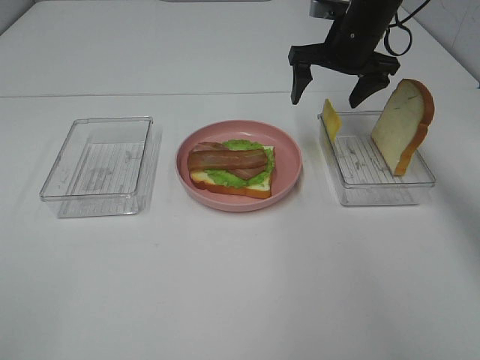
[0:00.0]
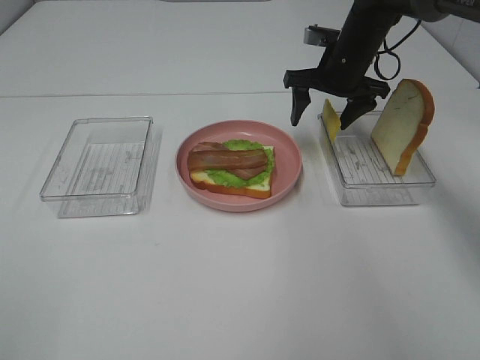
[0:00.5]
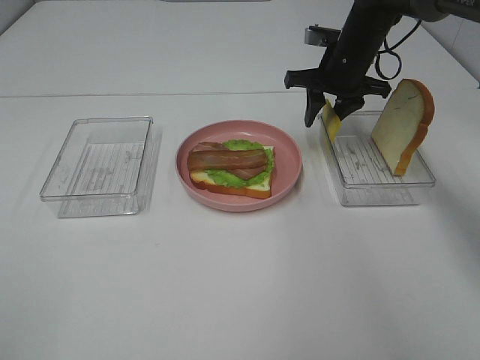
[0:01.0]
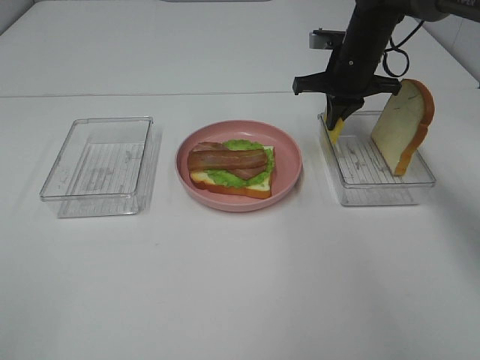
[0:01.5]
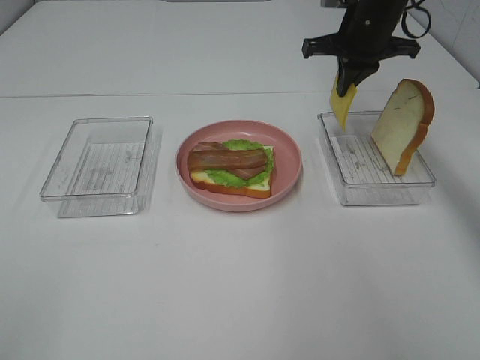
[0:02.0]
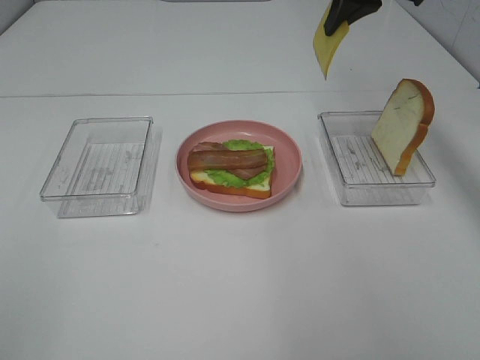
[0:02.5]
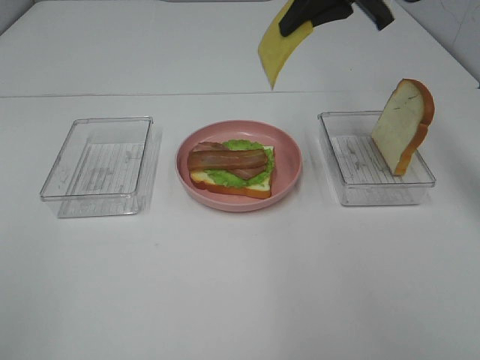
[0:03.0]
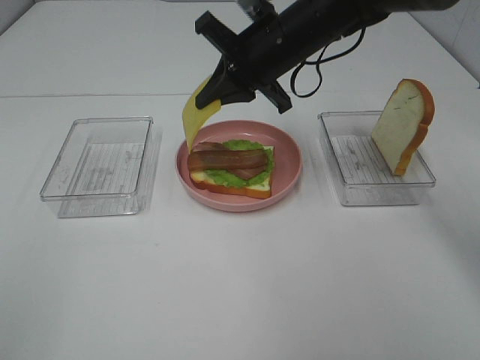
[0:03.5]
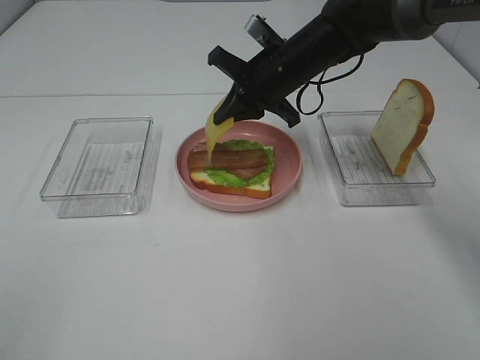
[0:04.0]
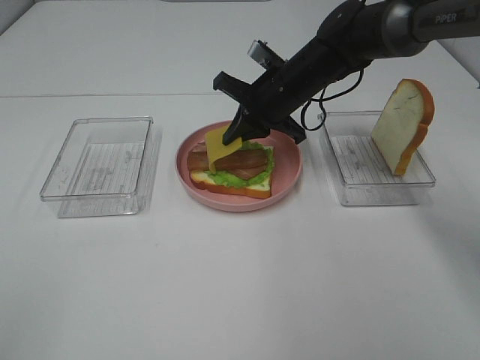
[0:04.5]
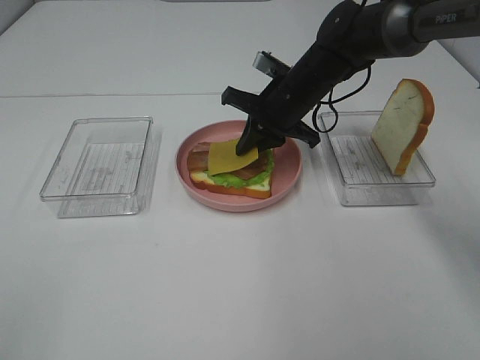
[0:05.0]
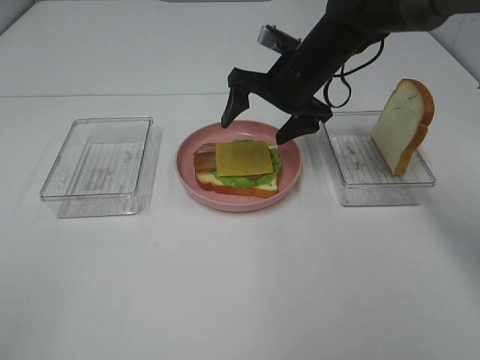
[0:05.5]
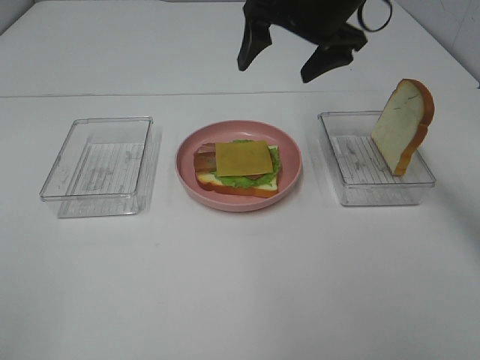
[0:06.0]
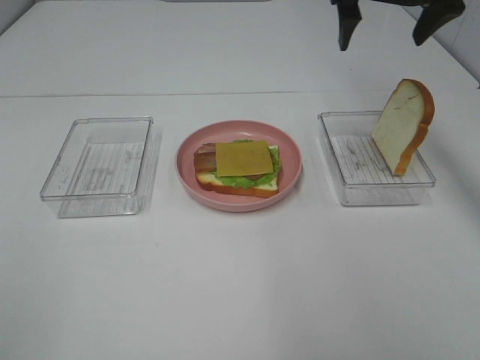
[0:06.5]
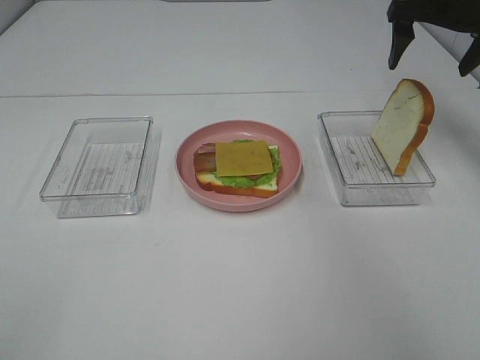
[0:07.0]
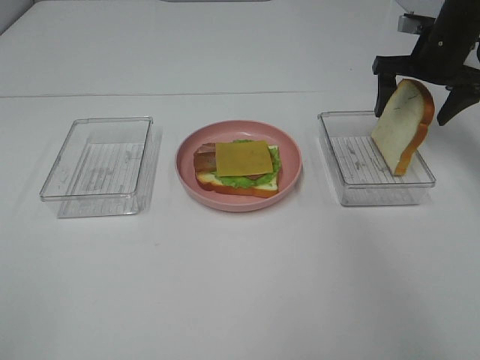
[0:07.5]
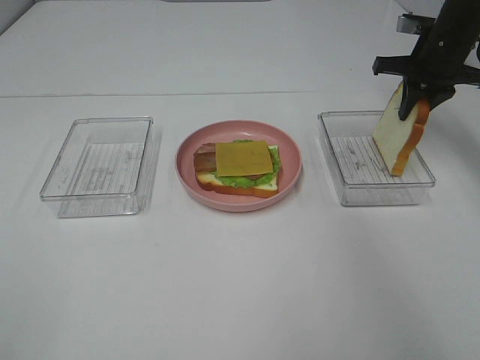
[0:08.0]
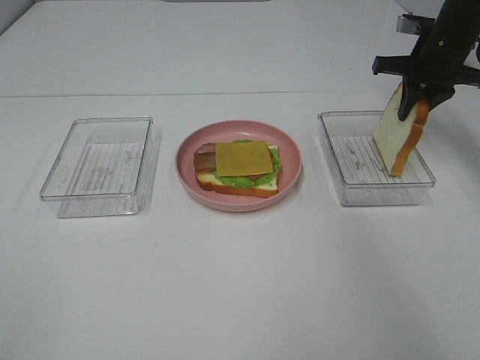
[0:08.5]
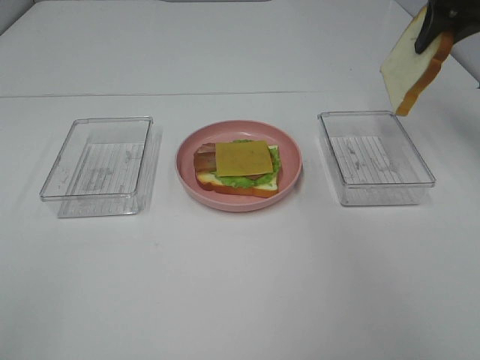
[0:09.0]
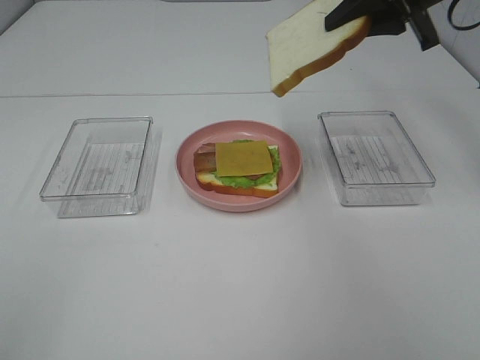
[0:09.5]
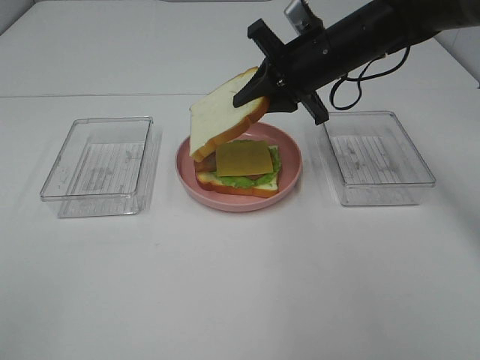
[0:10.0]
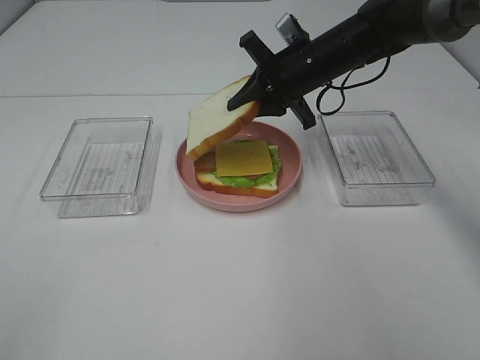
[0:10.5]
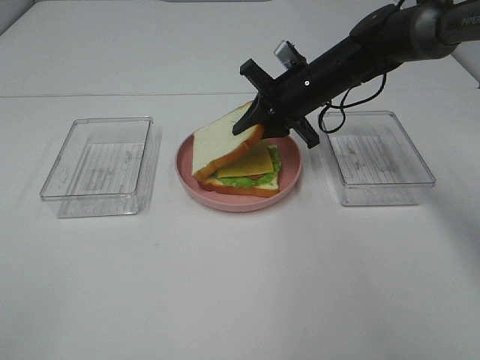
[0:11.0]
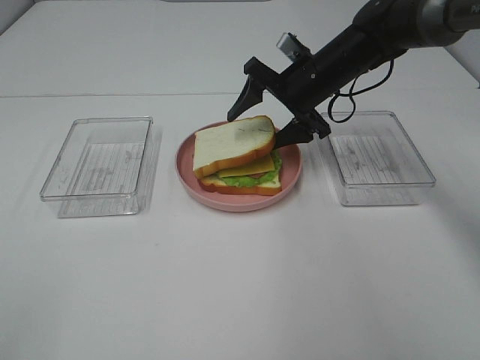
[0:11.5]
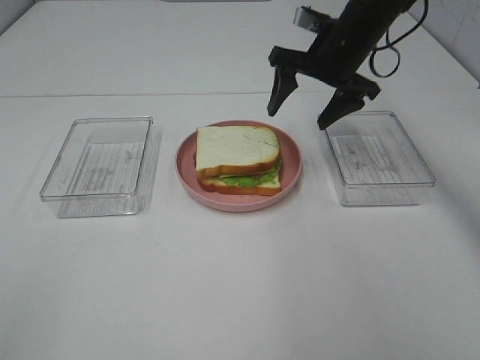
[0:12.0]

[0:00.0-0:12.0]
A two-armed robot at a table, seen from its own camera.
Task of the whole recording: Make sandwiches.
Step, 0:00.0 to 0:01.5: Right hand:grab the cheese slice.
Step, 0:02.0 to 0:05.5: Right hand:place the cheese slice on top of the bacon.
Step, 0:06.0 to 0:08.5: Right hand:grab the bread slice.
Step, 0:09.0 to 0:11.5: Right hand:place the bread slice on the cheese slice.
0:00.0 to 0:02.0: The right gripper closes.
0:02.0 to 0:04.0: The right gripper goes about 10 cm to the left and downward.
0:04.0 to 0:06.0: The right gripper moves upward, some 10 cm, and opens up.
0:06.0 to 0:08.0: The right gripper shifts about 20 cm to the right and downward, and closes.
0:08.0 to 0:10.0: The right gripper heads to the left, covering roughly 15 cm.
0:10.0 to 0:12.0: The right gripper moves about 5 cm downward and comes back, and opens its fingers.

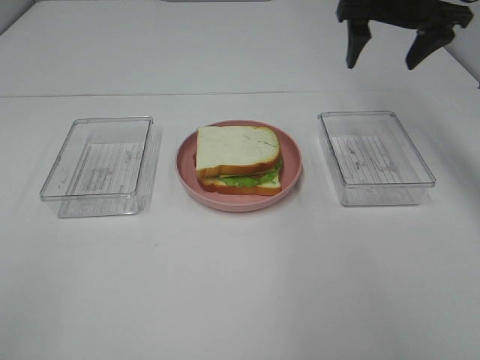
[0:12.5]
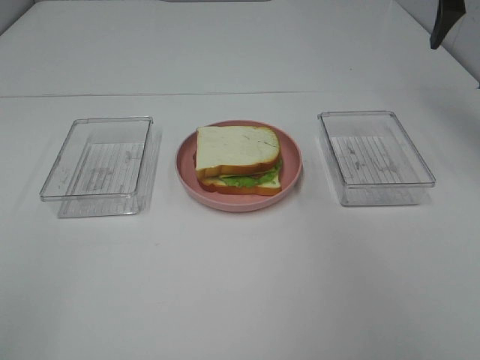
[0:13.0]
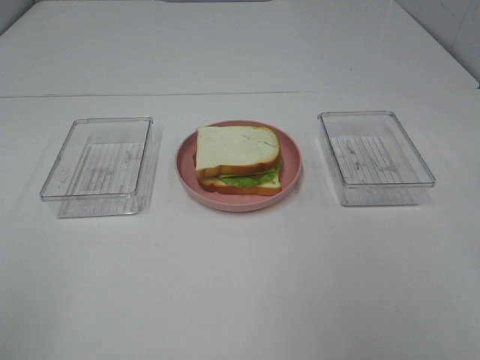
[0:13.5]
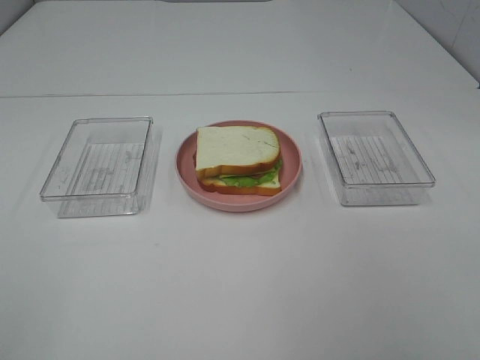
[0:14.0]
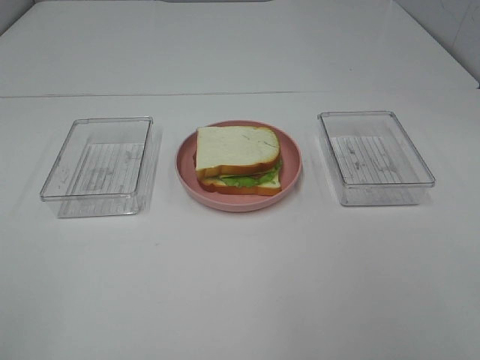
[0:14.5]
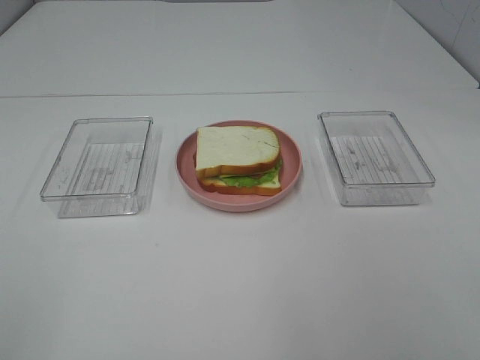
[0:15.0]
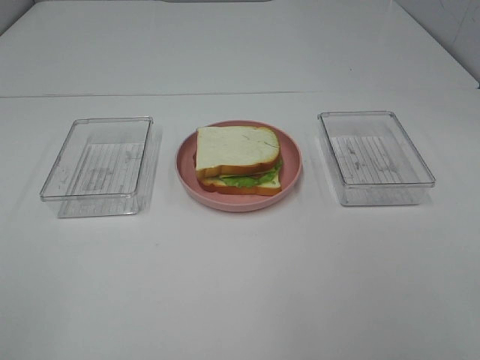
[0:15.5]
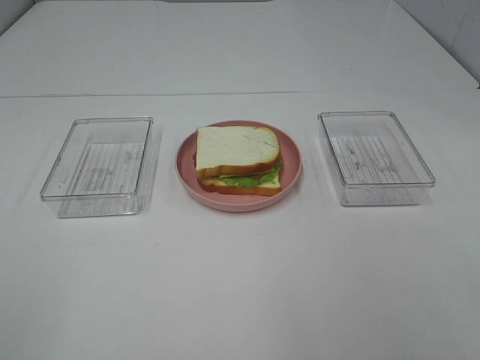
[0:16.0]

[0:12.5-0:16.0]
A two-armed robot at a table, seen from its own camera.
Task of the whole recording: Make sandwiches.
0:12.5 to 0:14.5: The right gripper is displaced backward by about 50 cm.
0:14.5 to 0:16.0: Both grippers stay about where they are.
